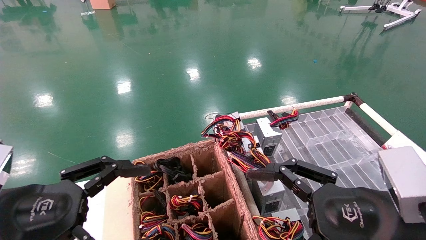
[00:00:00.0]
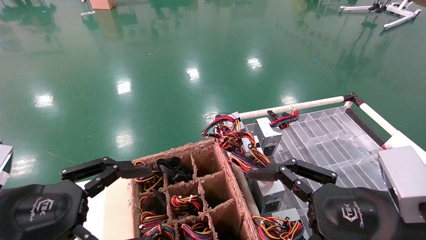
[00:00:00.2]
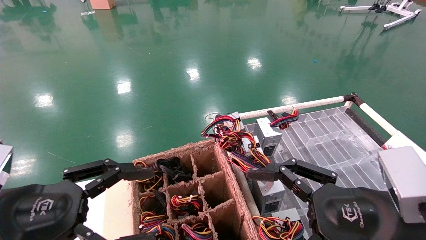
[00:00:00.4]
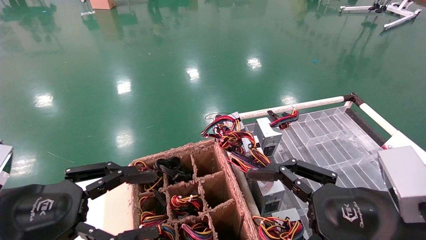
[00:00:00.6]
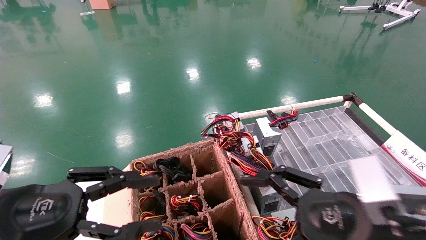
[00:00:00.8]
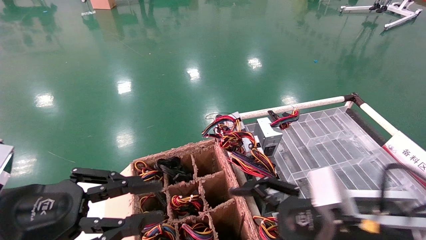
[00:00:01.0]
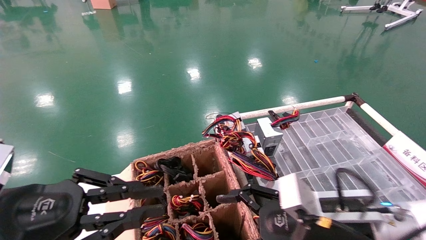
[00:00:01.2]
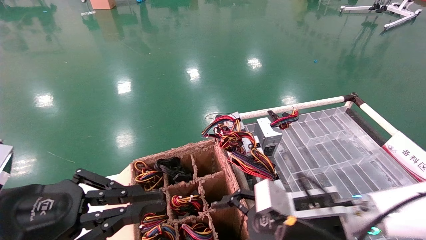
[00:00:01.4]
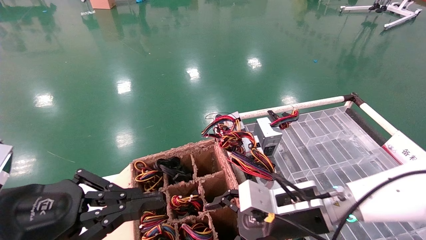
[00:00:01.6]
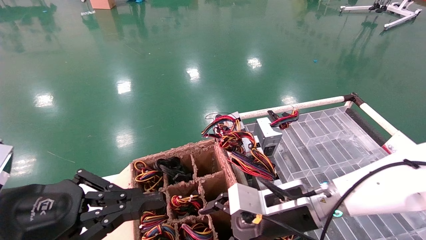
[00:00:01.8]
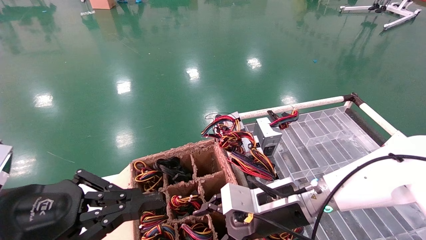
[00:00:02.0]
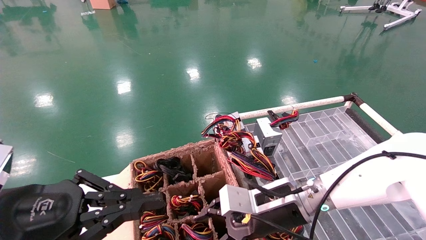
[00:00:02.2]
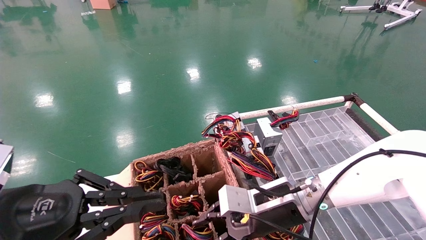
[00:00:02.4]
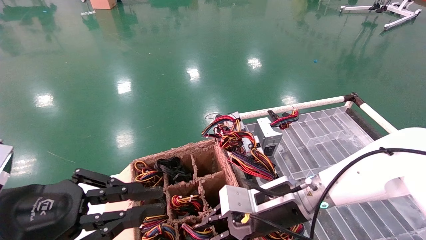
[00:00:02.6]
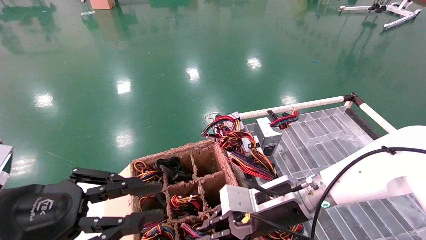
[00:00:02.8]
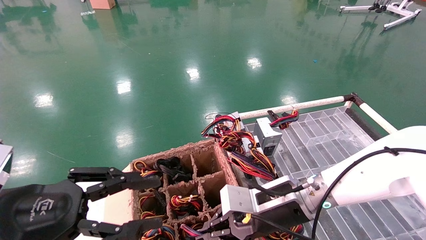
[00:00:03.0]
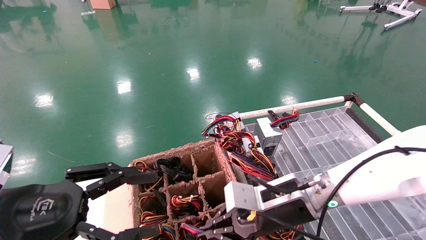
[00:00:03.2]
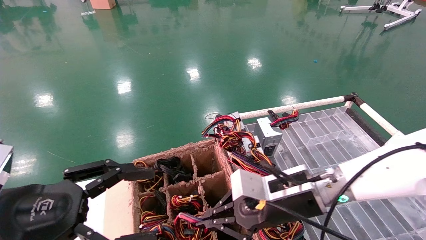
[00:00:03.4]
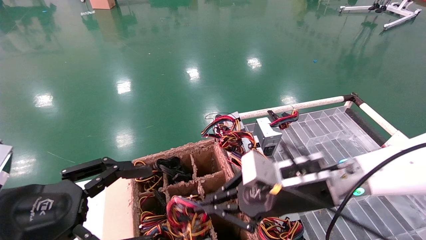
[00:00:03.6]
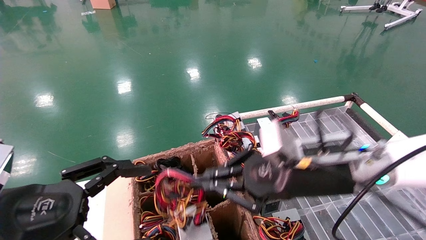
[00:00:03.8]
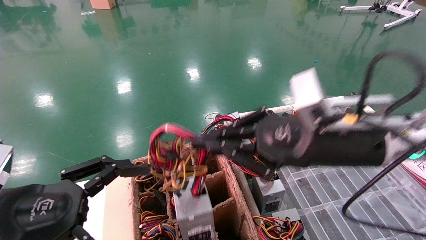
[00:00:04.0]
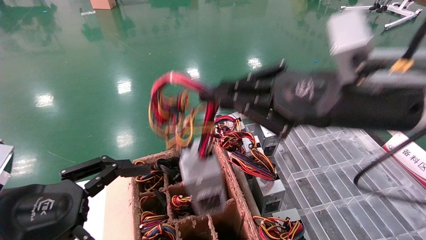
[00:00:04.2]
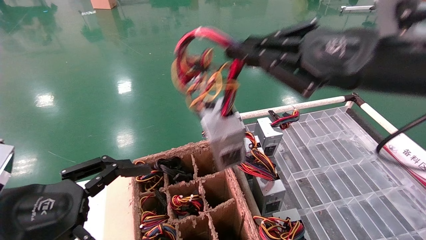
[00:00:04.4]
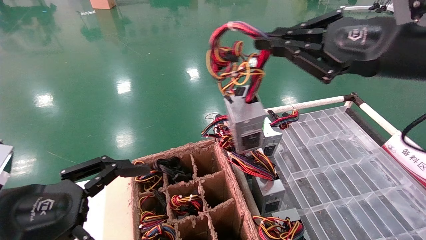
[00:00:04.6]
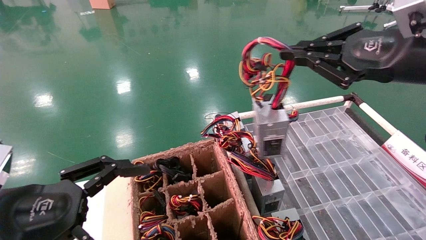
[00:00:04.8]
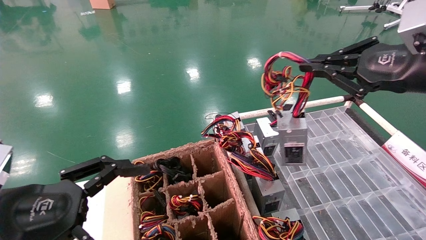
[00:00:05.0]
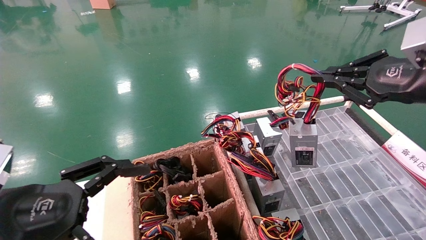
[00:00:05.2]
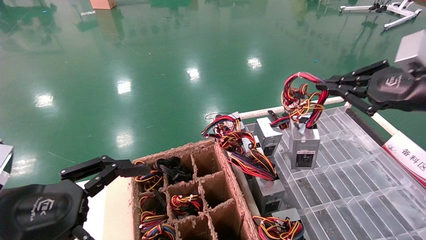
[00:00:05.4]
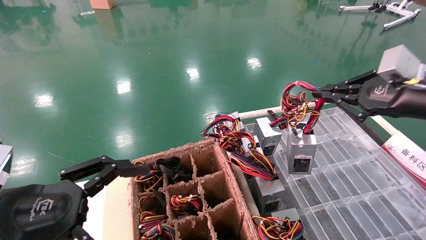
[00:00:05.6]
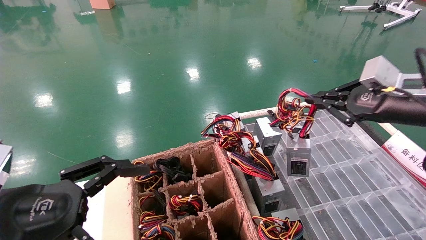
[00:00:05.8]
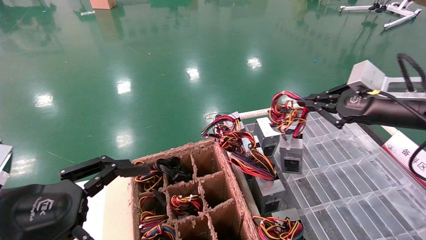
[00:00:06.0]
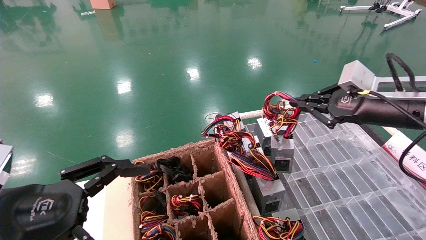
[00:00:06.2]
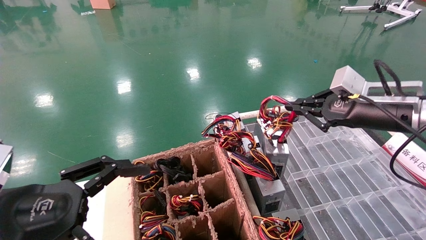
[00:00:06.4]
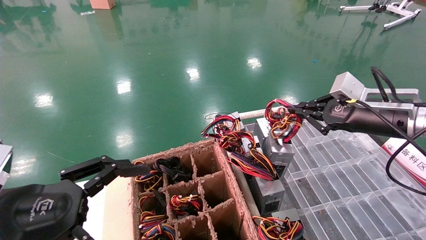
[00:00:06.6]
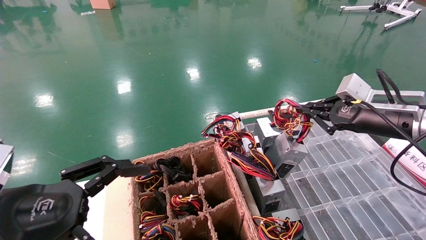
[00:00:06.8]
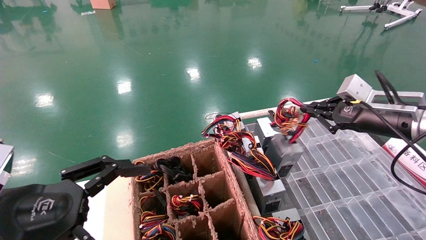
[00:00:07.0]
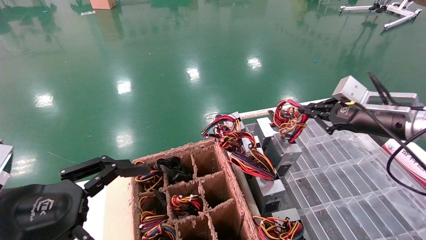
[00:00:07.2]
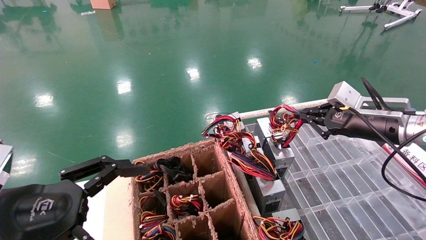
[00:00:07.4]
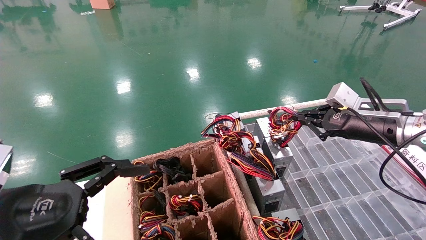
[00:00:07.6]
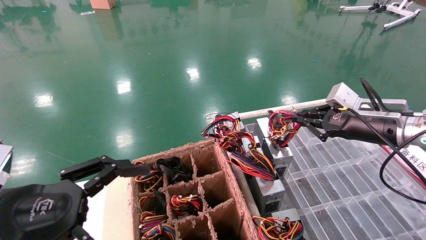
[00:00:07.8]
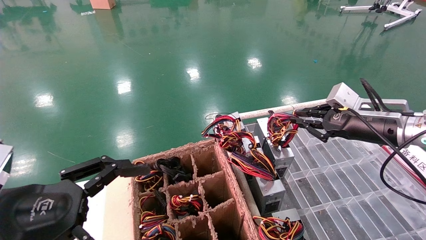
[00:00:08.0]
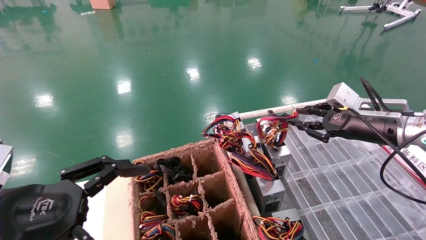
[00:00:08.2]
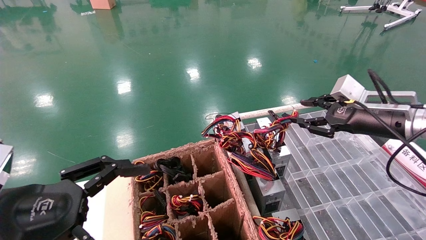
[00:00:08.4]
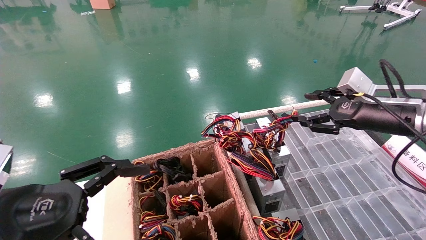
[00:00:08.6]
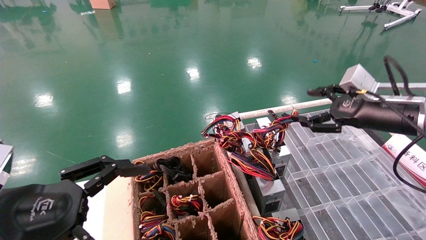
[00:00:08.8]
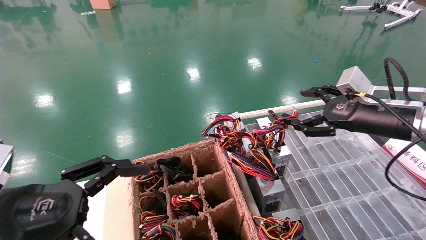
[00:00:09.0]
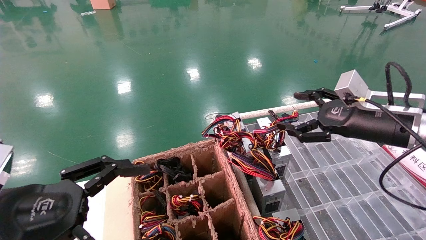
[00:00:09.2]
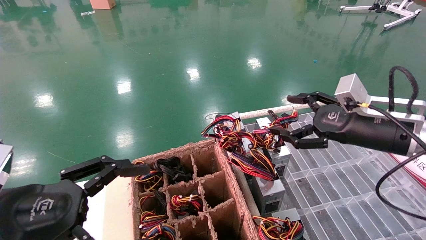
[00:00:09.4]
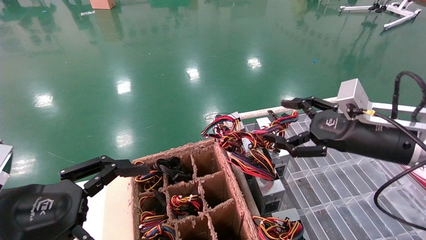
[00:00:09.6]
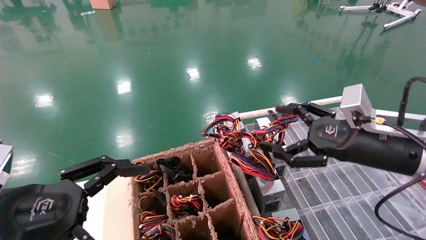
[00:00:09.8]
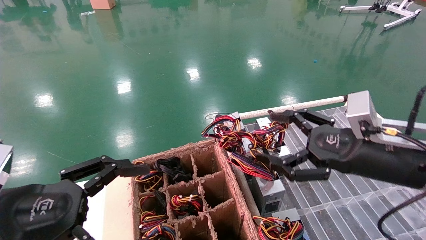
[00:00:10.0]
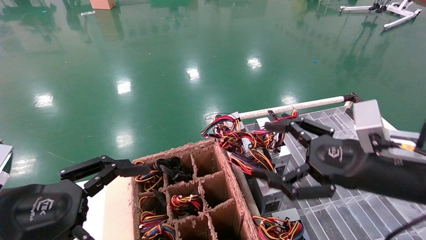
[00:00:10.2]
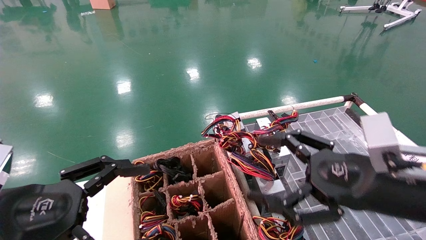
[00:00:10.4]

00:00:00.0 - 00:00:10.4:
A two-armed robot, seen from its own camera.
Step, 00:00:00.8 - 00:00:03.0: Grab and lift the power supply from the large box.
Step, 00:00:03.2 - 00:00:08.0: Place the power supply on the operating table.
00:00:00.0 - 00:00:01.4: The left gripper closes its fingers. Meanwhile the right gripper heads forward, downward and to the left, covering about 15 cm.
00:00:01.4 - 00:00:03.0: The right gripper moves roughly 5 cm, and closes up.
00:00:03.0 - 00:00:04.4: The right gripper travels upward and to the right by roughly 25 cm. The left gripper opens up.
00:00:04.4 - 00:00:06.0: The right gripper heads to the right, forward and downward, covering about 15 cm.
00:00:06.0 - 00:00:07.4: The right gripper shifts by some 5 cm.
00:00:07.4 - 00:00:09.0: The right gripper opens.
00:00:09.0 - 00:00:10.4: The right gripper is displaced backward, to the left and downward by approximately 15 cm.
